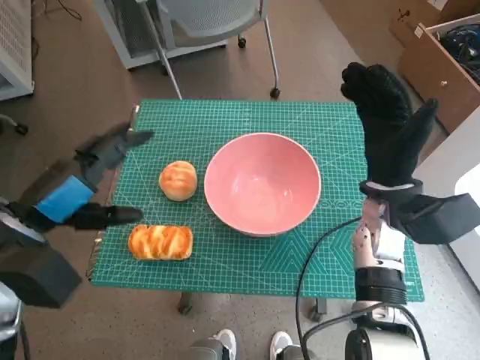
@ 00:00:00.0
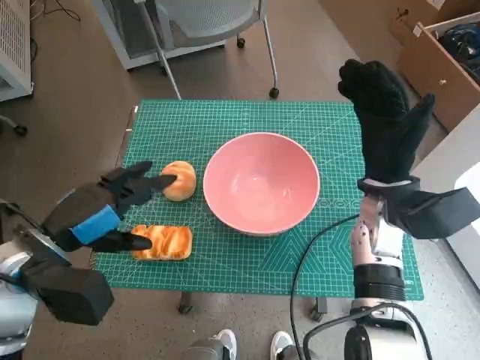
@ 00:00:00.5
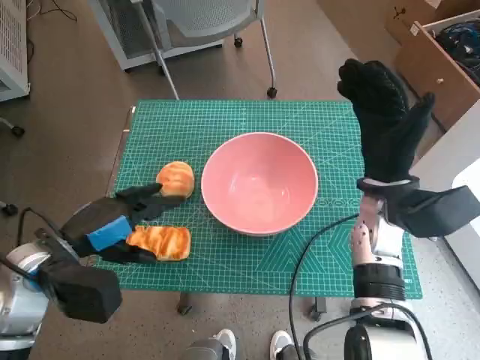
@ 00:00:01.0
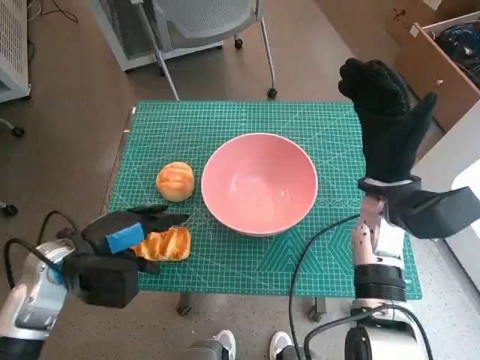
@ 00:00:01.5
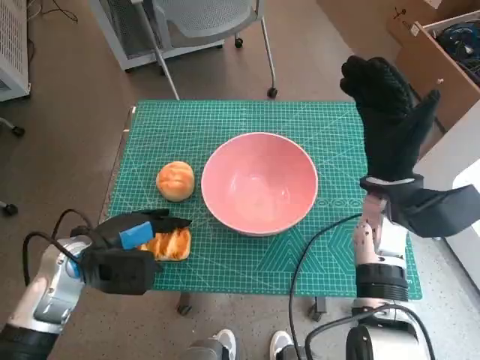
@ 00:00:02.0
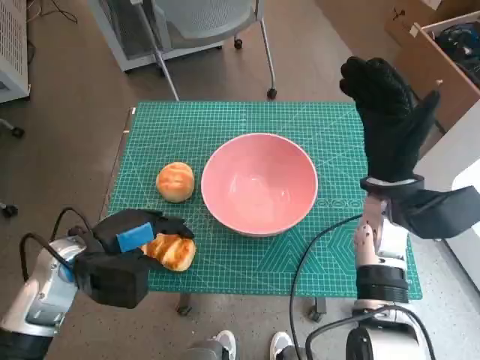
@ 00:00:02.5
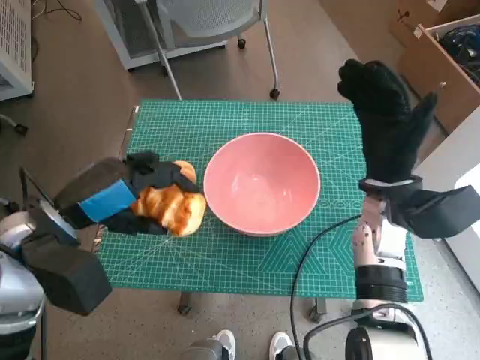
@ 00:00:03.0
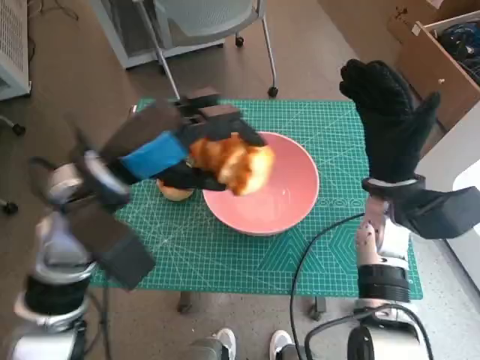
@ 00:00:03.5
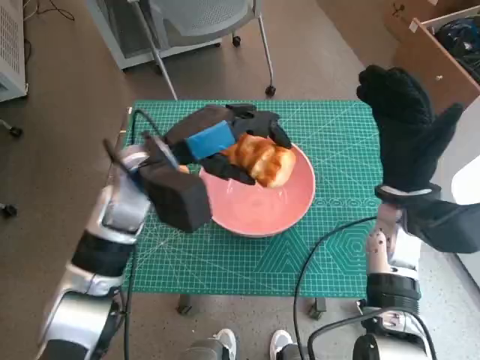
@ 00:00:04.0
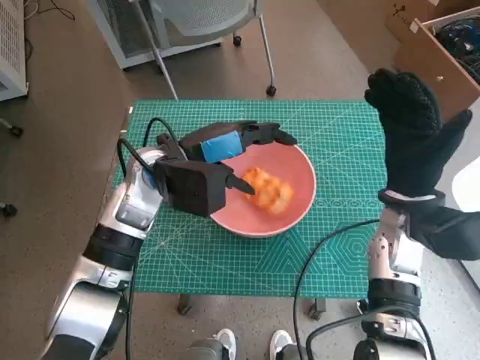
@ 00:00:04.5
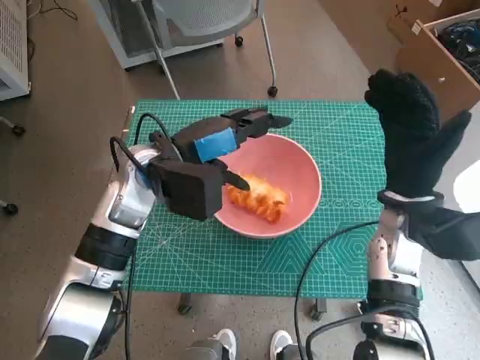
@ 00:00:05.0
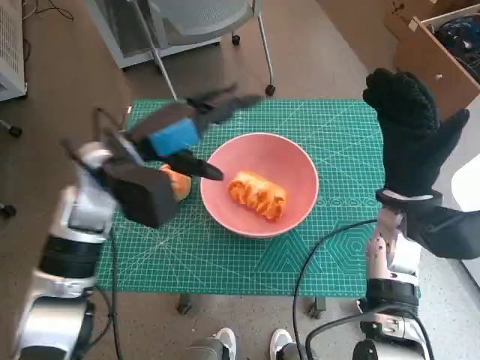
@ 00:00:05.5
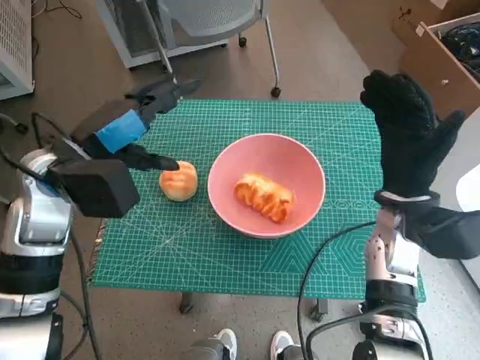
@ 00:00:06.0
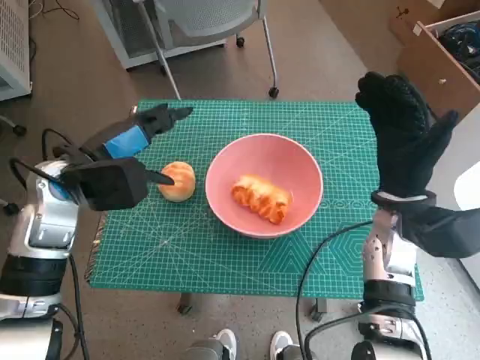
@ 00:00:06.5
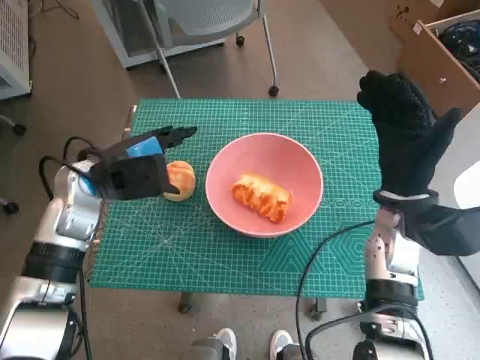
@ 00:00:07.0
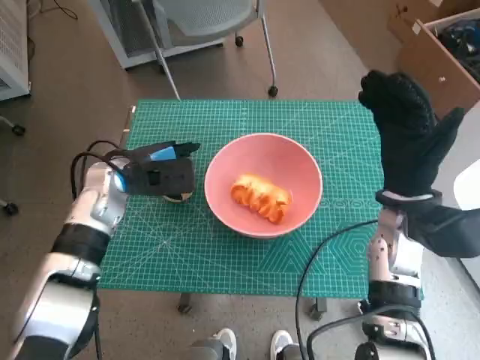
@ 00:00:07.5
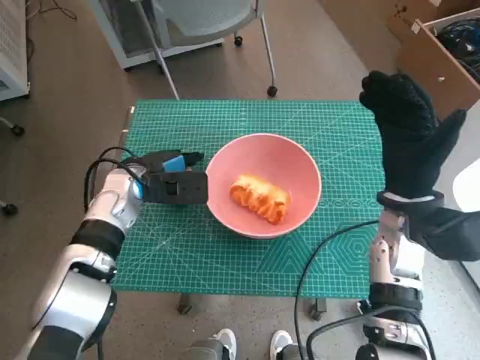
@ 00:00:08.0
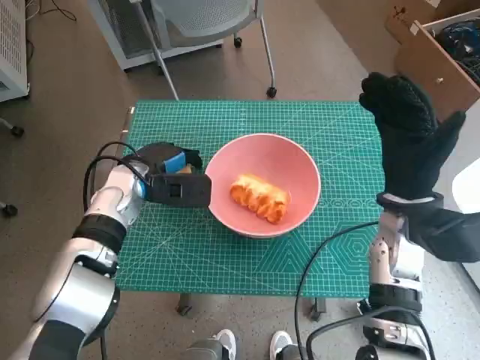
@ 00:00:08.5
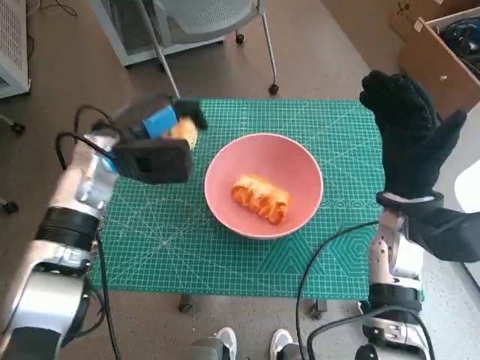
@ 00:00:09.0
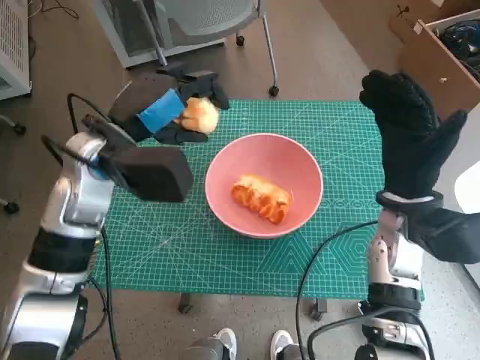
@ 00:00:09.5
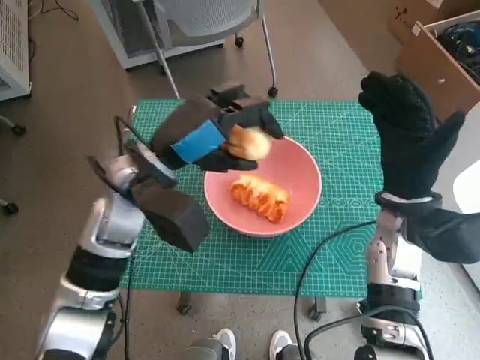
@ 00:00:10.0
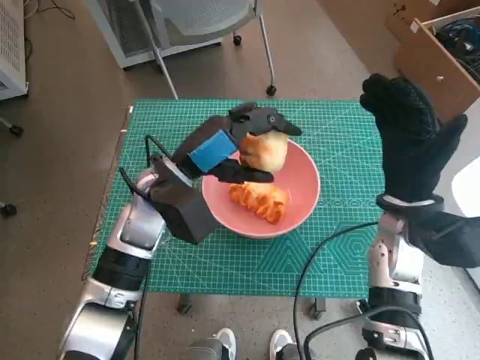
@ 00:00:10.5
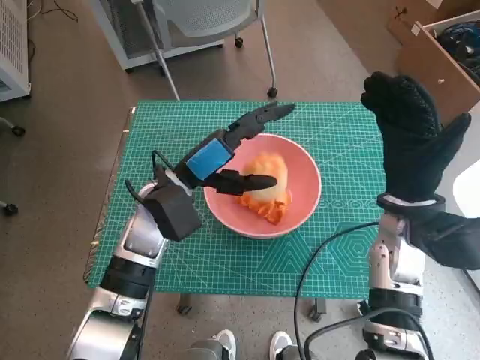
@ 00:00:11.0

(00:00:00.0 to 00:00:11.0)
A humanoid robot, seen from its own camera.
Step, 00:00:00.0 - 00:00:02.0: Grasp the long bread with left hand.
Step, 00:00:02.5 - 00:00:04.5: Place the long bread in pink bowl with left hand.
Step, 00:00:05.0 - 00:00:08.0: Grasp the round bread with left hand.
00:00:00.0 - 00:00:02.0: The left hand shifts roughly 10 cm downward.
00:00:02.0 - 00:00:03.5: The left hand moves upward and to the right, approximately 15 cm.
00:00:03.5 - 00:00:05.5: The left hand goes some 5 cm forward.
00:00:05.5 - 00:00:07.5: The left hand heads downward, covering some 10 cm.
00:00:09.0 - 00:00:11.0: The left hand heads to the right, covering some 5 cm.

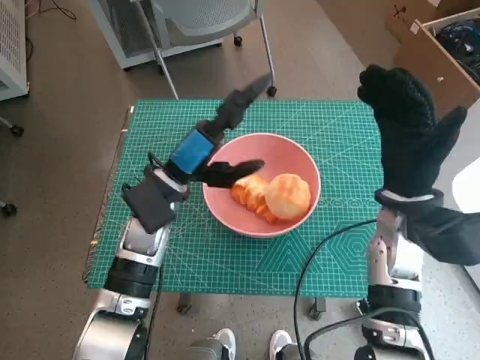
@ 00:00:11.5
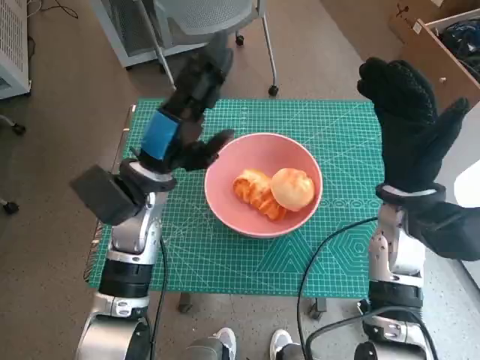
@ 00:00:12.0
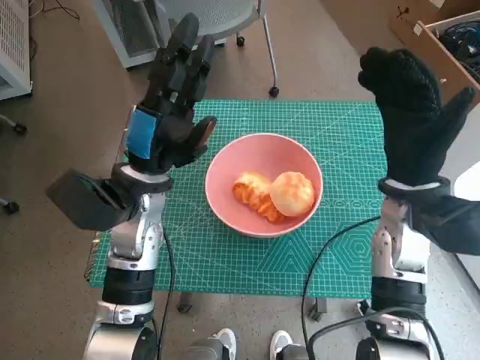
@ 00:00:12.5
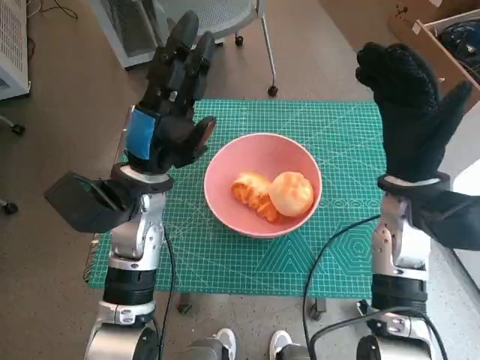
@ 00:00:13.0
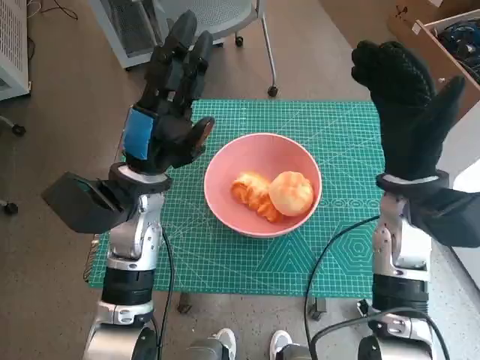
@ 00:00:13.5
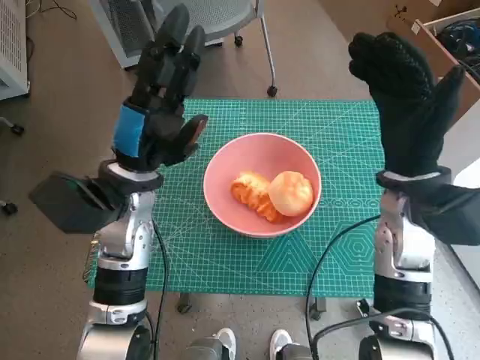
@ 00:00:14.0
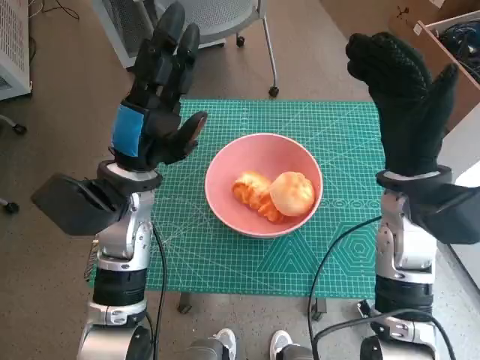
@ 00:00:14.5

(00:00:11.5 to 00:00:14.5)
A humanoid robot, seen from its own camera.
00:00:13.0 - 00:00:14.5: There are only small adjustments of the hands.

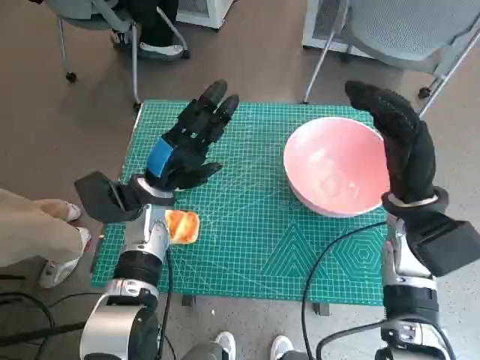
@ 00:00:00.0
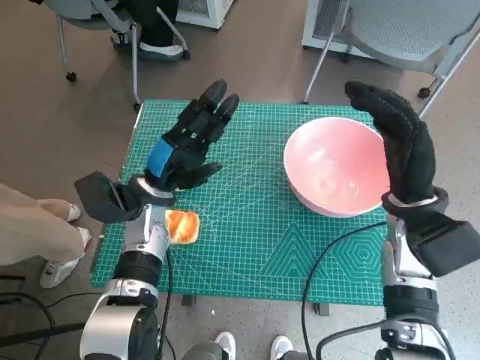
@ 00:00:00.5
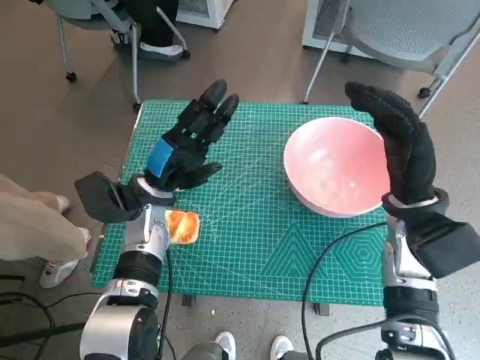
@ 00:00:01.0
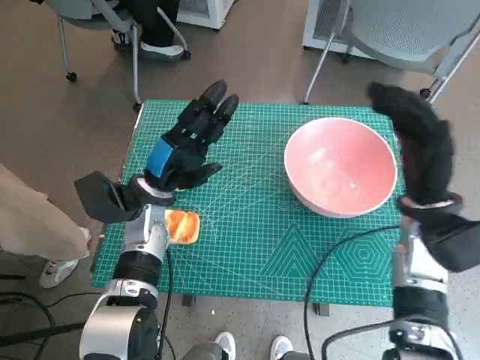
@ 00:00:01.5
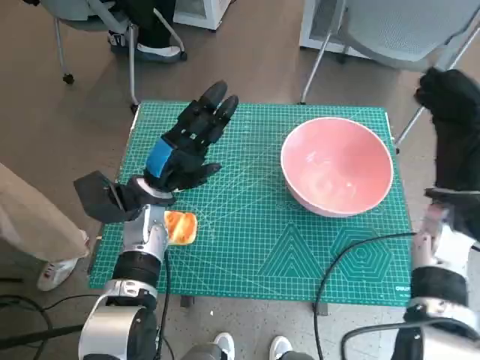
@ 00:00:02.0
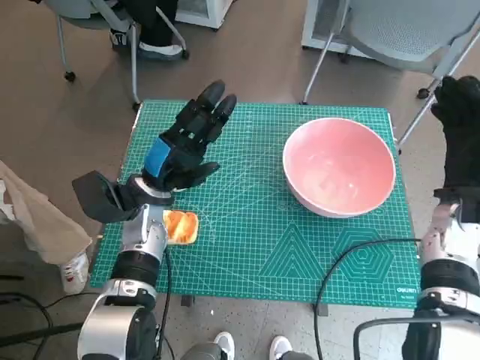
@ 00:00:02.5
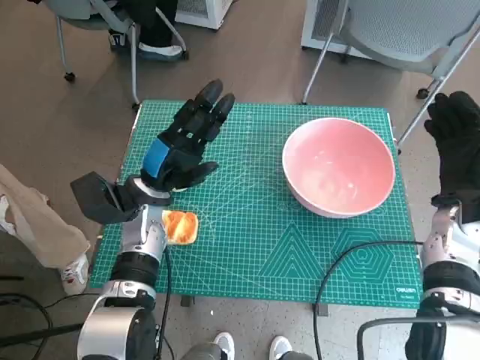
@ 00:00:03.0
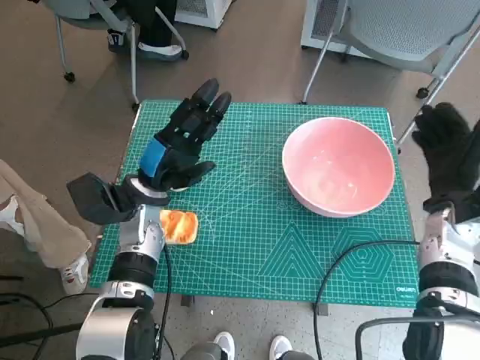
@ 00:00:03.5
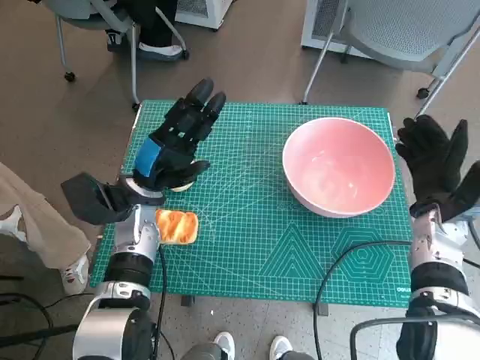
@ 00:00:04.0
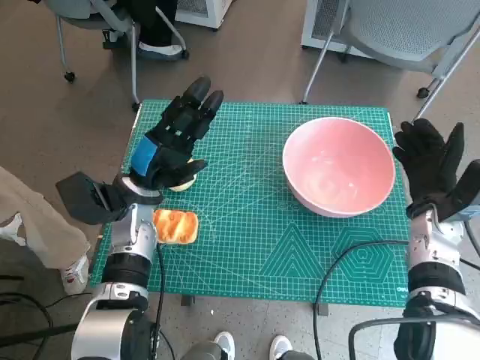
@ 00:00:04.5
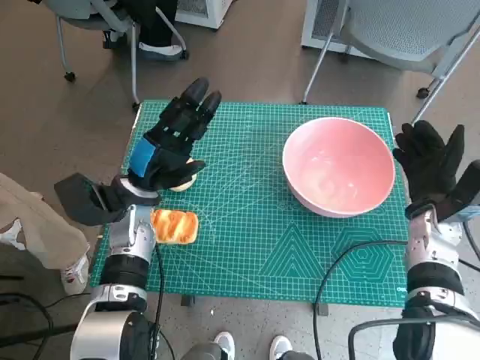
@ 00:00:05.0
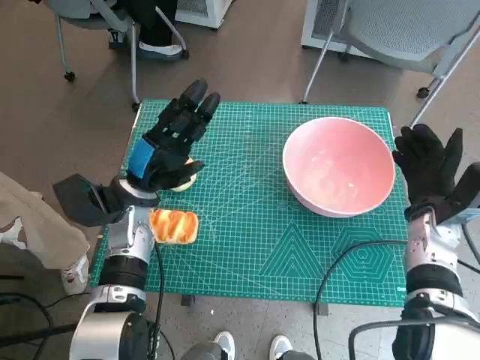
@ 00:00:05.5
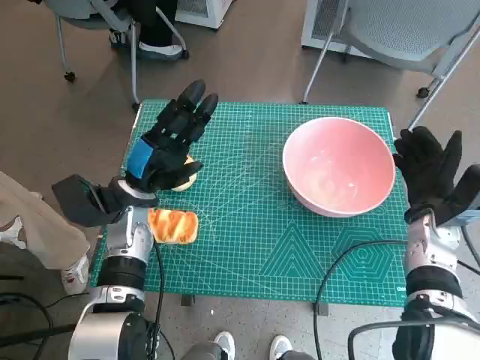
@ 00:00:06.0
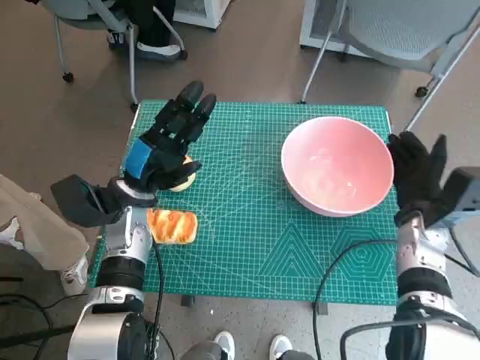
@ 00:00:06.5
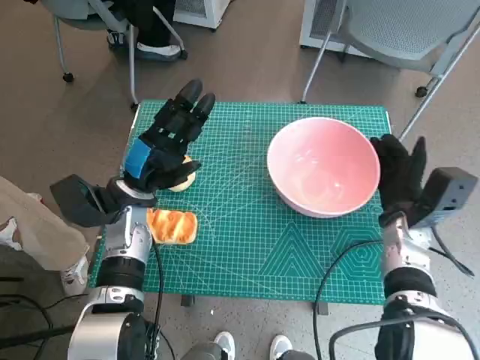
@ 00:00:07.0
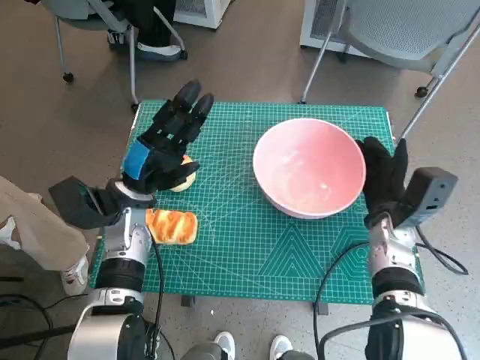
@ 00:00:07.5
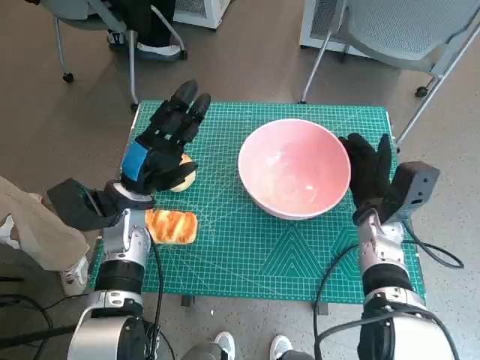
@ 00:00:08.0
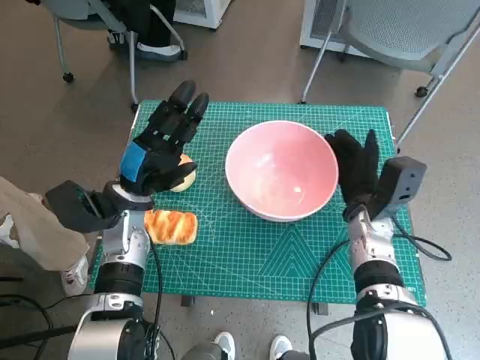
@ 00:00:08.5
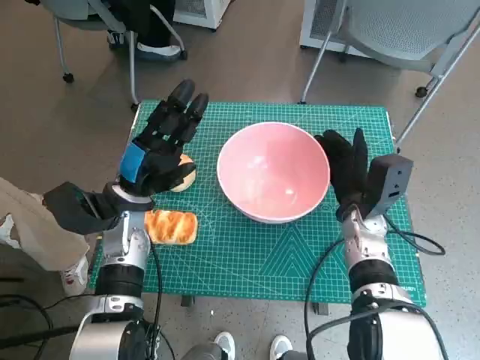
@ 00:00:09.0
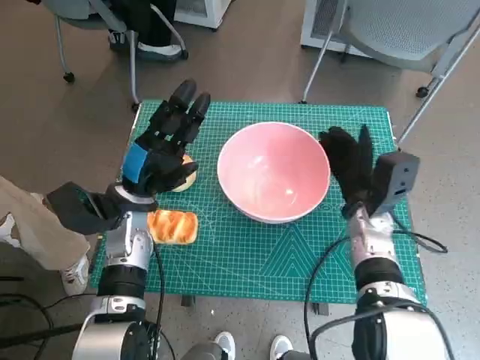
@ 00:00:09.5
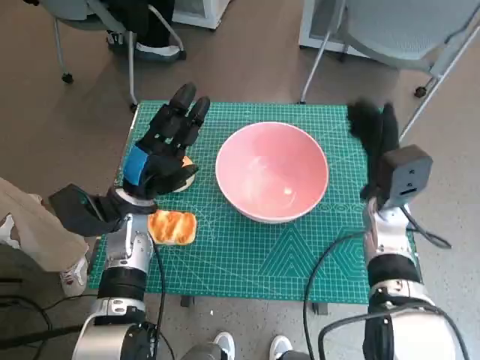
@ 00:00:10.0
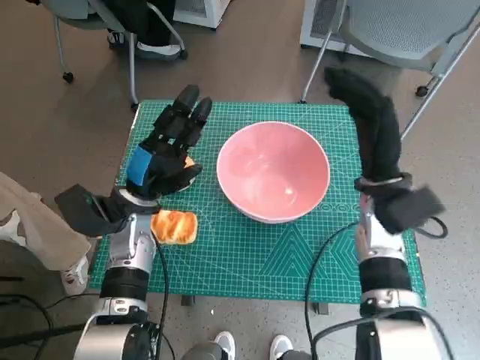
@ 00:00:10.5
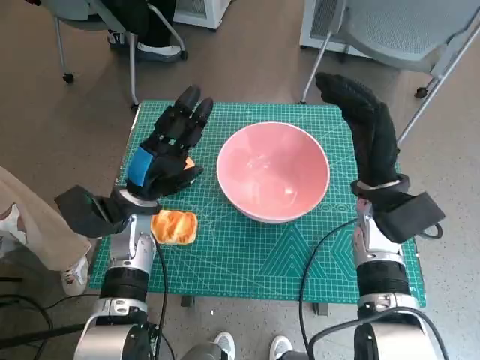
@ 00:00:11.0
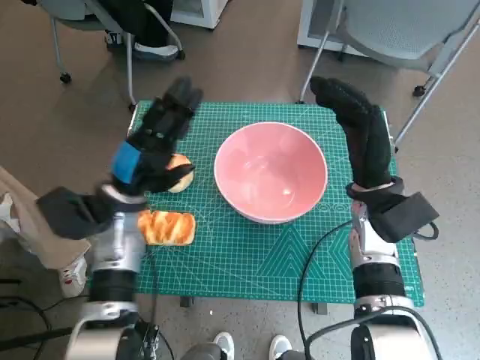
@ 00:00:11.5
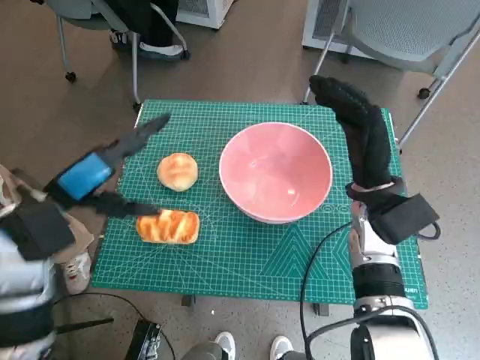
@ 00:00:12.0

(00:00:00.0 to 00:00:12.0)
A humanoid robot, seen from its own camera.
Step, 00:00:00.0 - 00:00:09.5: Move the pink bowl to the center of table with right hand.
00:00:04.0 - 00:00:06.0: The hands move only a little.
00:00:06.0 - 00:00:08.0: The right hand heads to the left, covering about 5 cm.
00:00:10.0 - 00:00:12.0: The left hand is displaced upward, to the left and backward by some 10 cm; the right hand moves approximately 5 cm.
